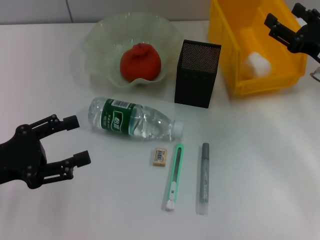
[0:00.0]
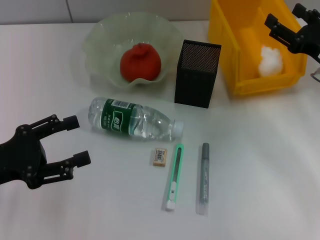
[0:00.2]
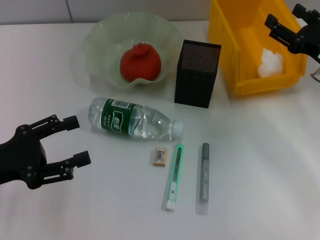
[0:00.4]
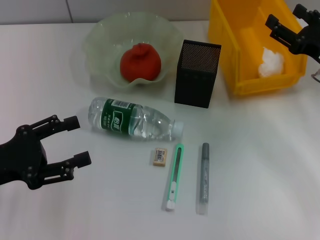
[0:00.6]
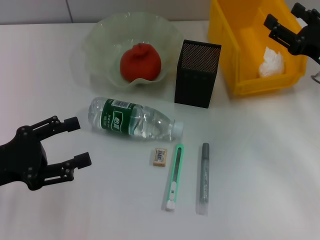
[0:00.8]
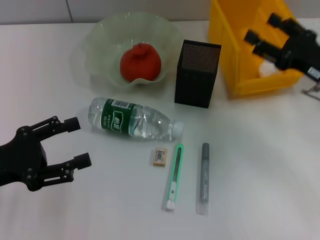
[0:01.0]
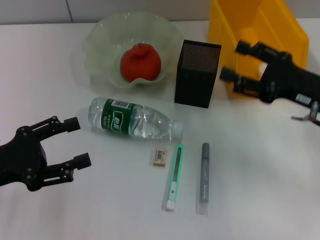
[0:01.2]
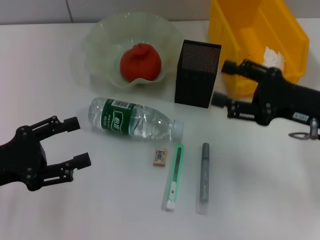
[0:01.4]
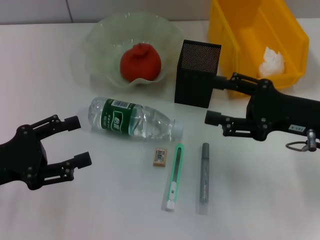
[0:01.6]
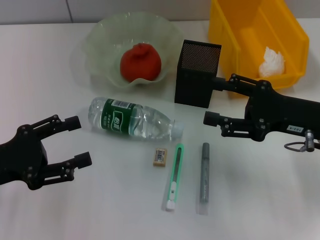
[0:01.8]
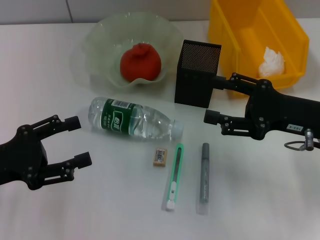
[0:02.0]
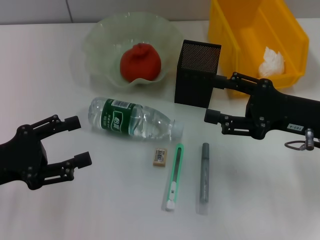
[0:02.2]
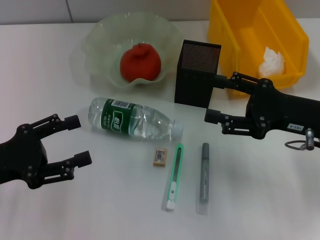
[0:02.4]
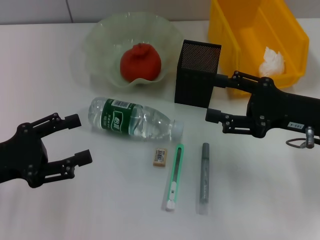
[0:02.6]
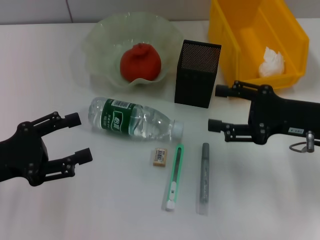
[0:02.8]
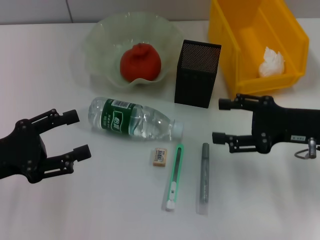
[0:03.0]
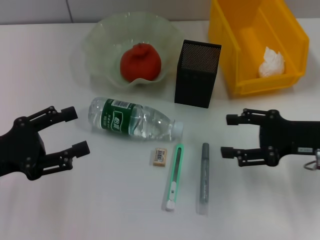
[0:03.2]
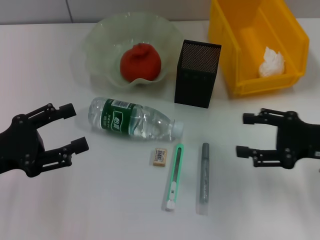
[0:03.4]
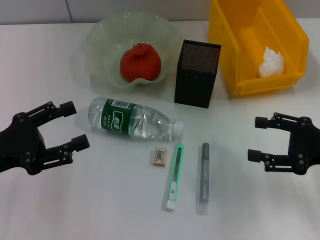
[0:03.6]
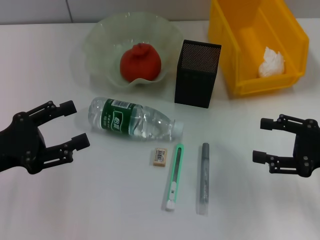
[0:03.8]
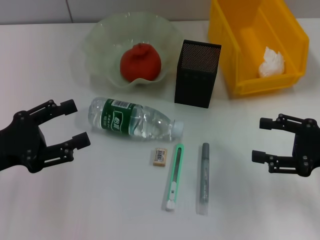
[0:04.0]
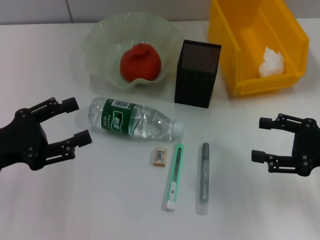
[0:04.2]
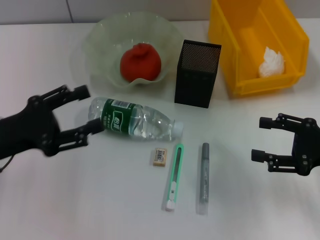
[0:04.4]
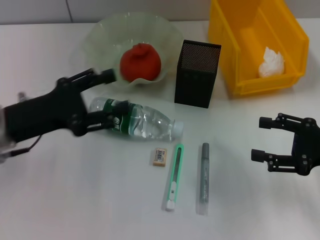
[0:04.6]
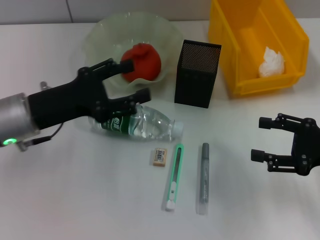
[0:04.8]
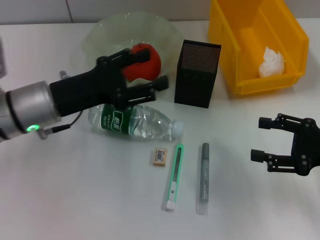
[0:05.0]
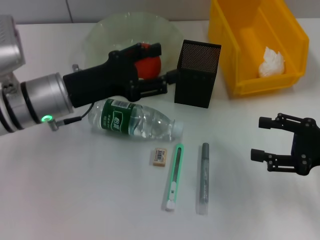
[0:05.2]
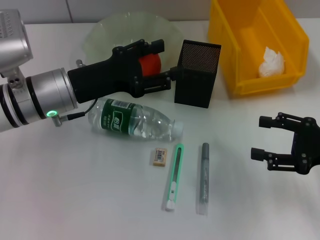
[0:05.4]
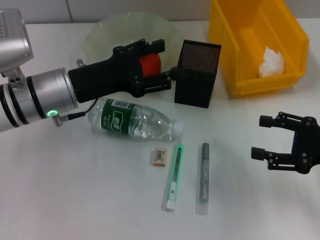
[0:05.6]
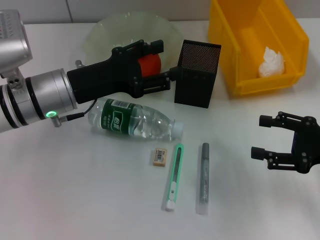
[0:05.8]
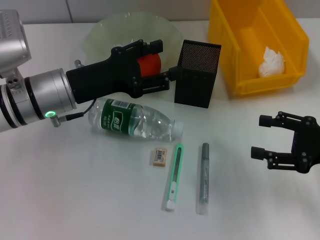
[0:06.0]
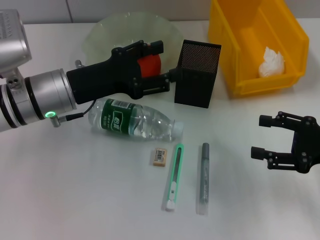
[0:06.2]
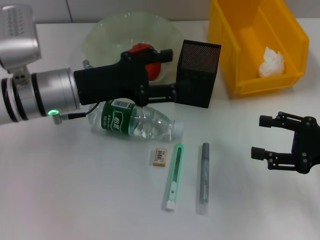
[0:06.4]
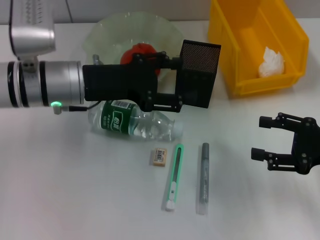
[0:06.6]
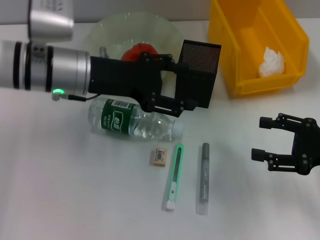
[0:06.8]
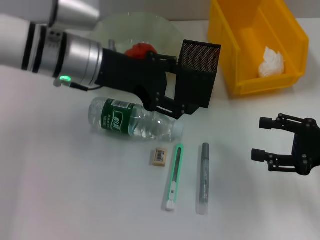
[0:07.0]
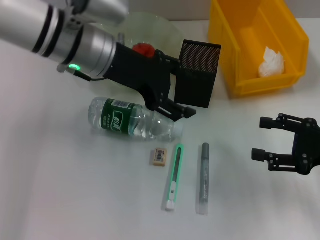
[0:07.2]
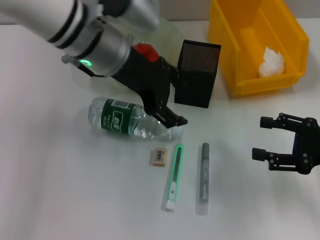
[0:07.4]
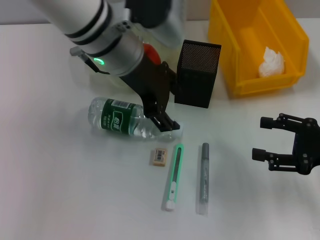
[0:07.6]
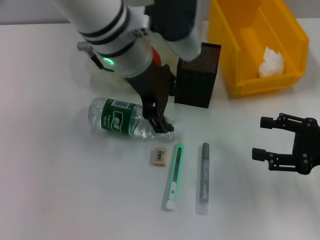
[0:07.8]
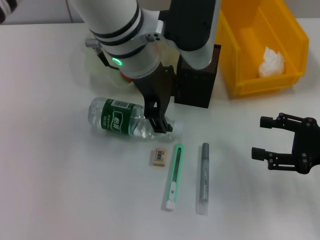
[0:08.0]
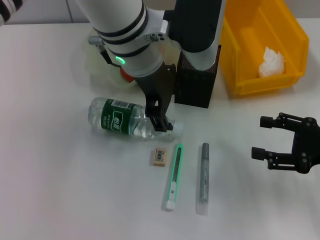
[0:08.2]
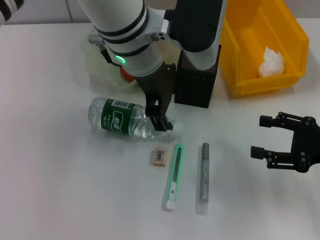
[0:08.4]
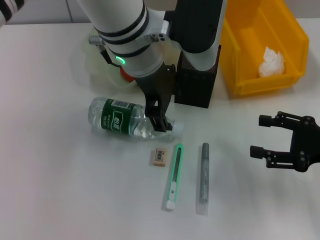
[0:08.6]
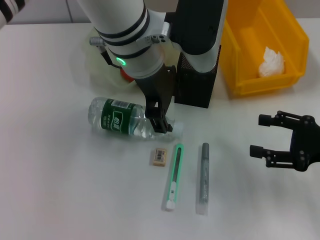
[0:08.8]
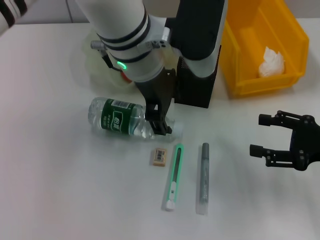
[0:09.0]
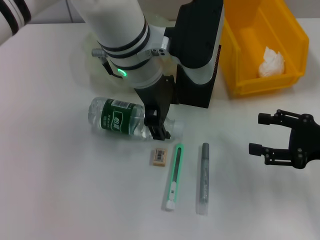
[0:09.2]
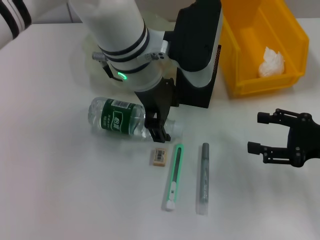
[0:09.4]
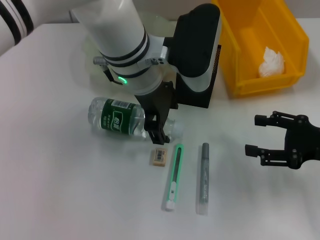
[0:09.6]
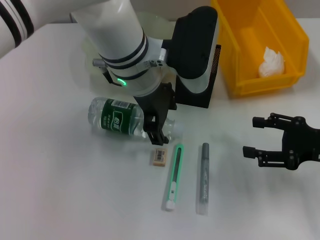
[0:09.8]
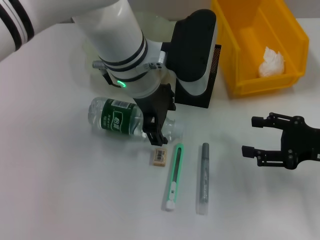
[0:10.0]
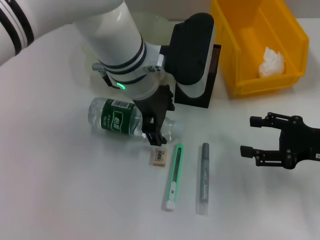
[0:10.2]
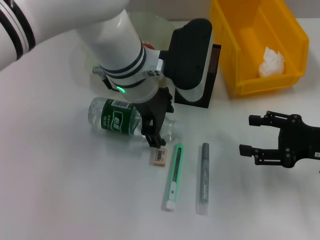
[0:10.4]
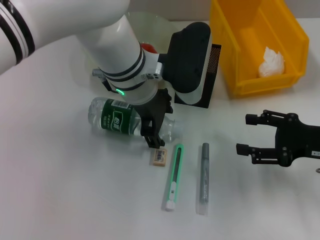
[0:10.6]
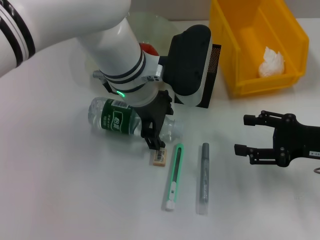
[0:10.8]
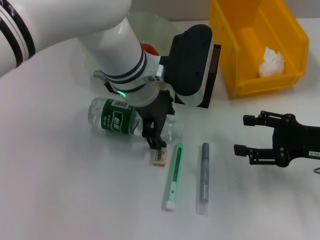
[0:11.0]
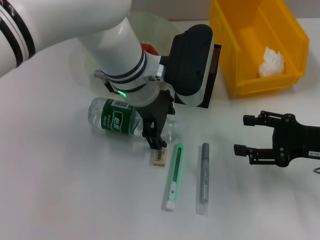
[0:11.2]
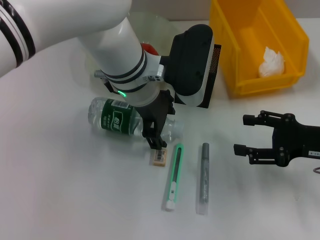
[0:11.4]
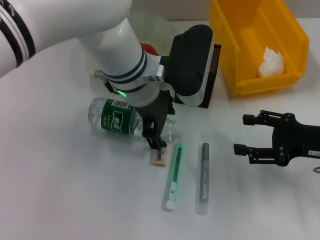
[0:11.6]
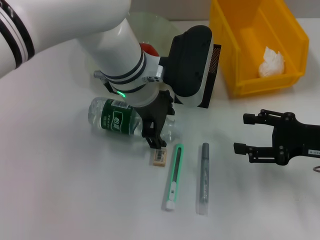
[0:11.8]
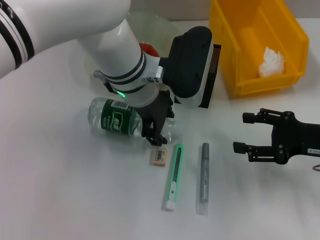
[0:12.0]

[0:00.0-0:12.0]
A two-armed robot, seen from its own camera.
0:00.0 to 0:01.6: The right gripper moves backward, approximately 5 cm.
0:01.6 to 0:03.0: The grippers move only a little.
0:03.0 to 0:04.4: The right gripper shifts roughly 5 cm to the right.
0:04.4 to 0:06.0: The left gripper is displaced to the right and forward by roughly 15 cm.
0:06.0 to 0:07.6: The left gripper shifts about 15 cm to the right and upward.
0:07.6 to 0:09.0: The grippers stay close to where they were, moving slightly.
0:09.0 to 0:10.4: The left gripper moves downward, about 5 cm.
0:10.4 to 0:12.0: Both grippers stay about where they are.

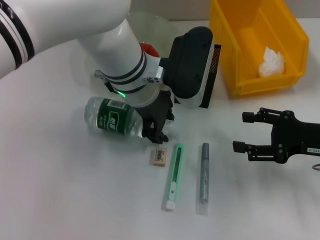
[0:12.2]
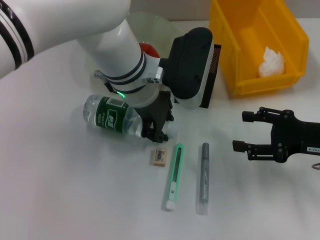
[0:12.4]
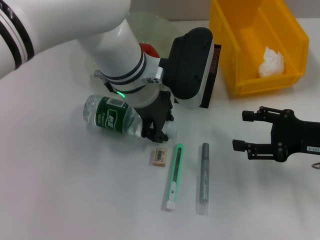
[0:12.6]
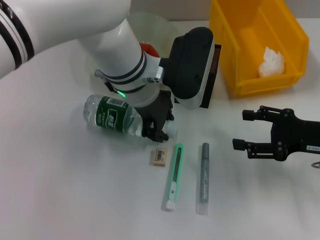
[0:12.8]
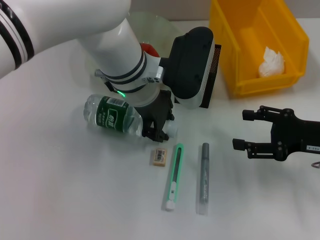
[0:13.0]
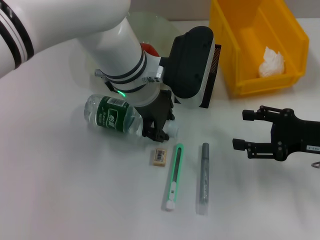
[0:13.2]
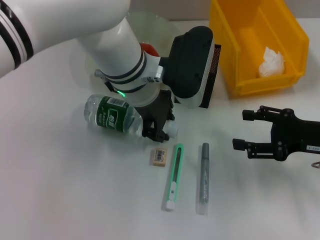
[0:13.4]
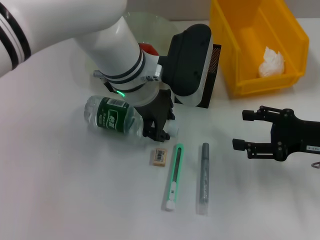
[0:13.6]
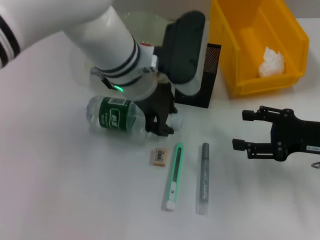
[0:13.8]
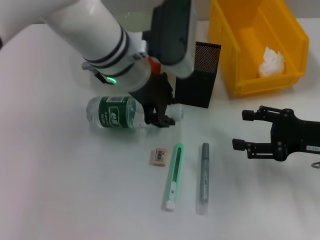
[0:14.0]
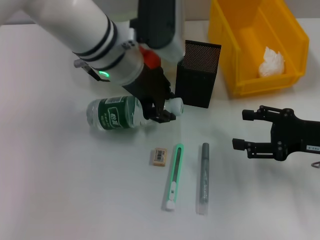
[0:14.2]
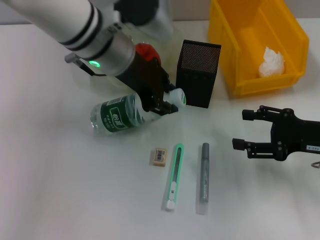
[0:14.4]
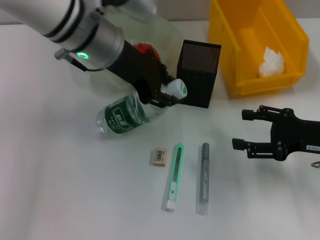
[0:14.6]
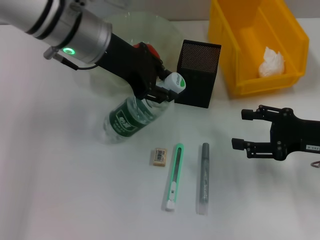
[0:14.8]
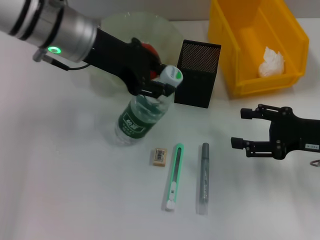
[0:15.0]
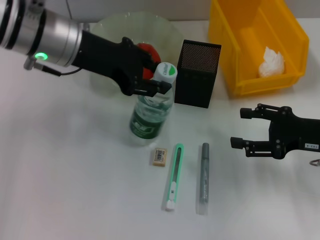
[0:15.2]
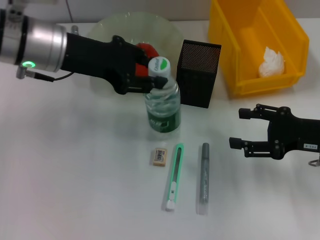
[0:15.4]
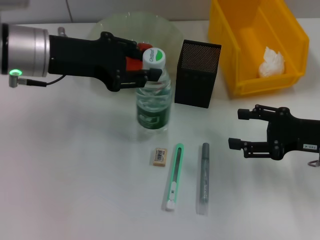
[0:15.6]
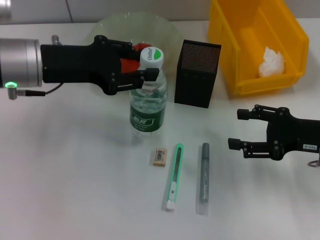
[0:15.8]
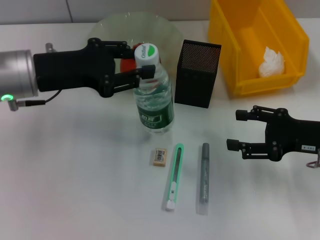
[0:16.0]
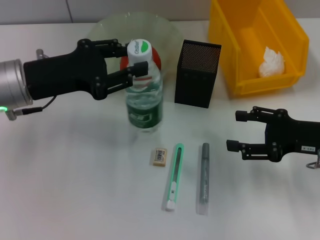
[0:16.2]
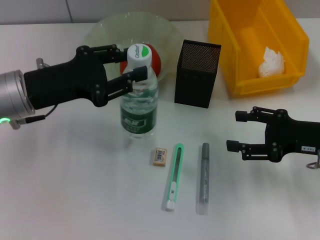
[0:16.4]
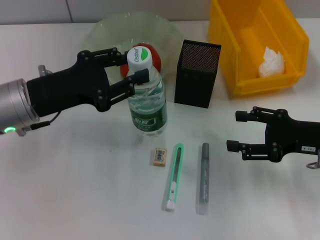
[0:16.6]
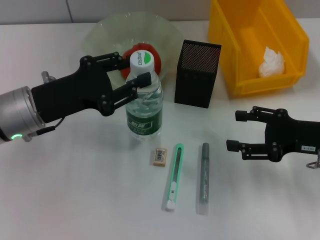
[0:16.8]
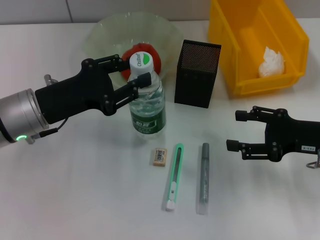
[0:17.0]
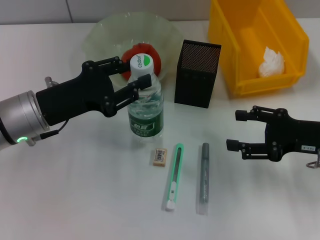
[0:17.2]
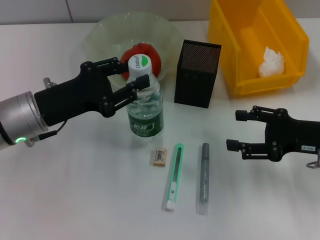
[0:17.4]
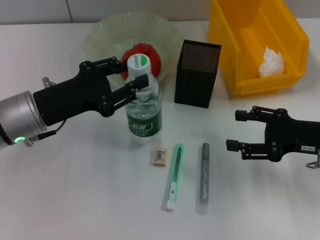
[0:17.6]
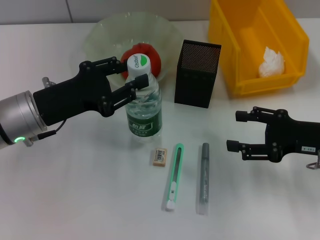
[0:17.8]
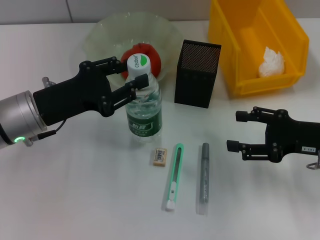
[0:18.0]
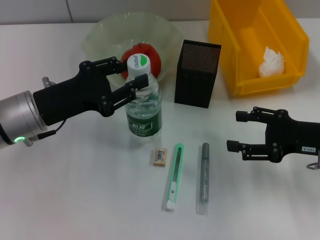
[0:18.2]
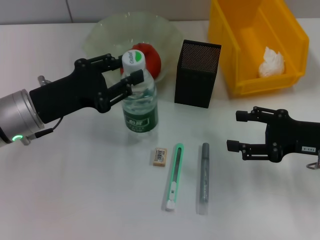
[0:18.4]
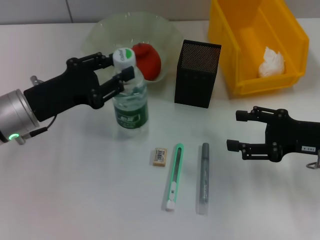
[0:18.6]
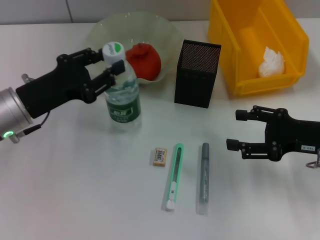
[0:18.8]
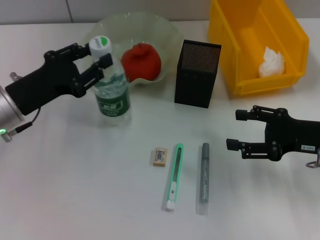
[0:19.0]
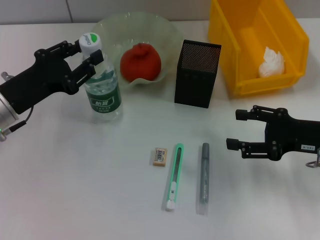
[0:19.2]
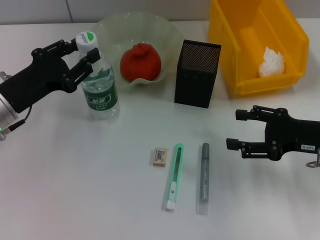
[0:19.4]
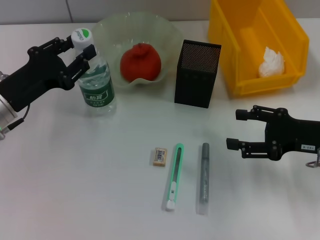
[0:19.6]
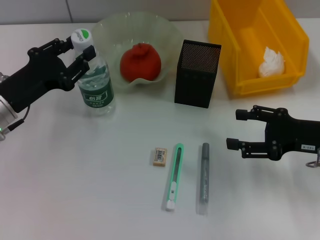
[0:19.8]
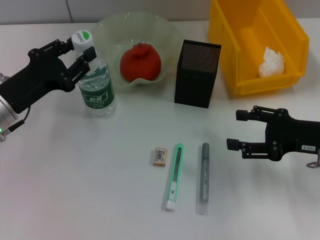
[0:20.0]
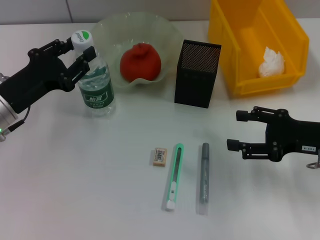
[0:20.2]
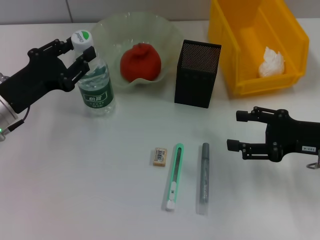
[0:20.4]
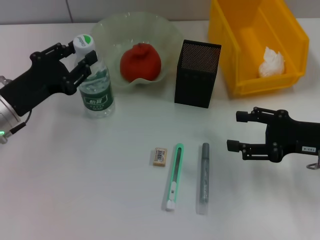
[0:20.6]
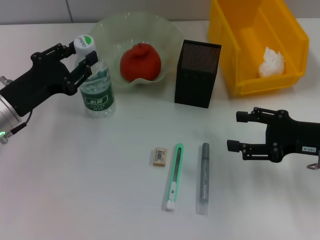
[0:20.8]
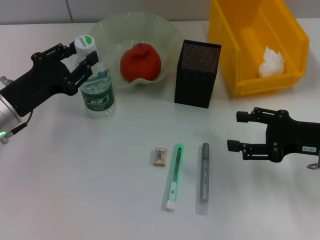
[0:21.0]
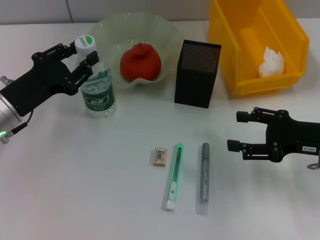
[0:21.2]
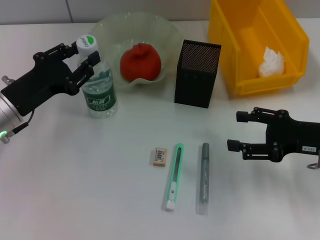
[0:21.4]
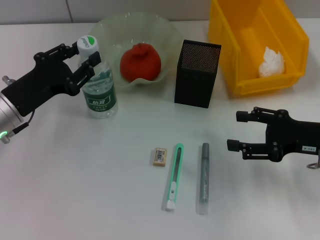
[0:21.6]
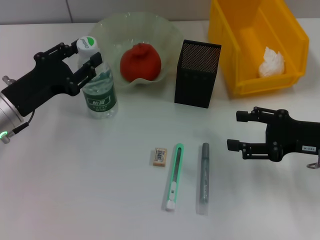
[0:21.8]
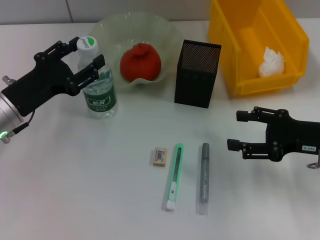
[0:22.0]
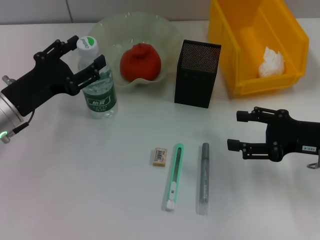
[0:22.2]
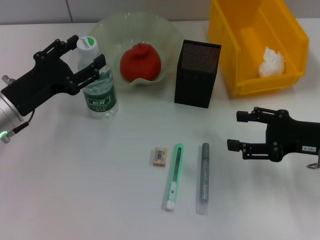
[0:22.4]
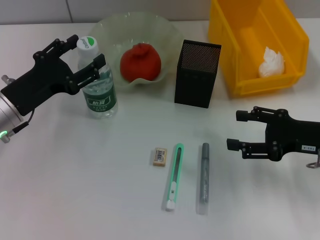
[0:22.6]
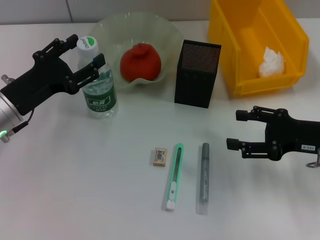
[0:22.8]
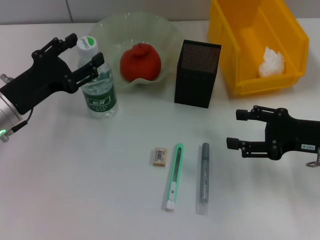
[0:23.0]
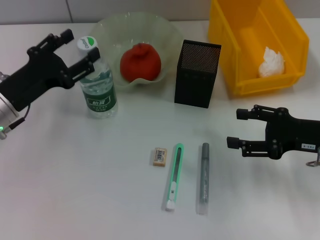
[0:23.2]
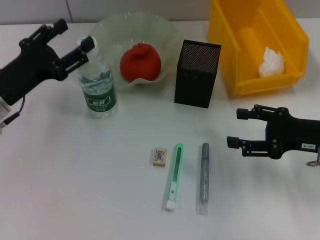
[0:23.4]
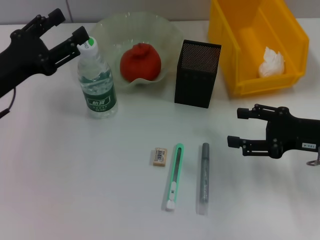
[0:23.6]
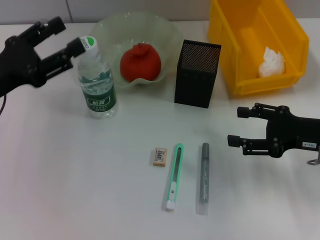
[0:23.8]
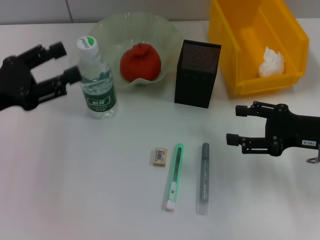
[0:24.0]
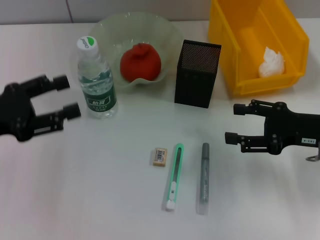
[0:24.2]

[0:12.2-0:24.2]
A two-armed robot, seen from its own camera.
Step, 0:13.6 to 0:21.6: Place the water bottle on the table with the left hand.
0:12.2 to 0:13.8: The grippers move only a little.
0:13.8 to 0:15.2: The left gripper goes approximately 10 cm to the left.
0:15.2 to 0:16.6: The left gripper travels downward, backward and to the left by some 10 cm.
0:16.6 to 0:18.2: The grippers make only small movements.
0:19.8 to 0:22.6: Both grippers stay about where they are.
0:22.6 to 0:24.2: The left gripper moves to the left and upward, about 5 cm.
